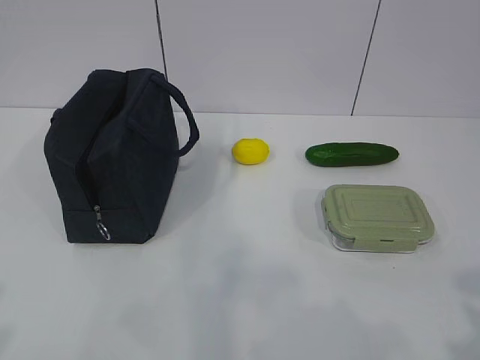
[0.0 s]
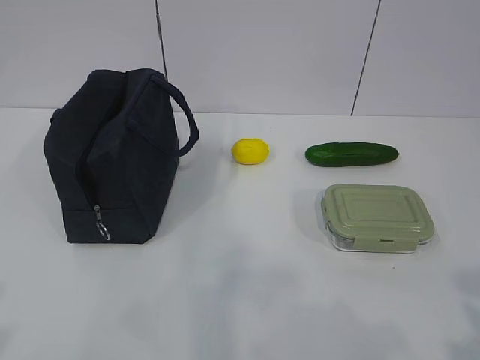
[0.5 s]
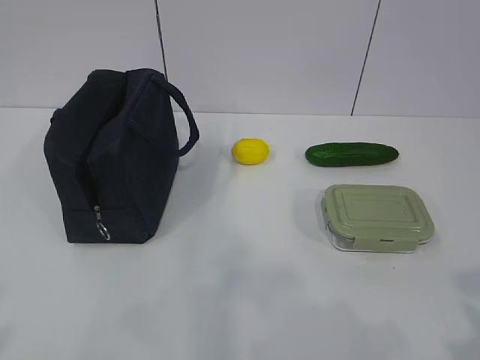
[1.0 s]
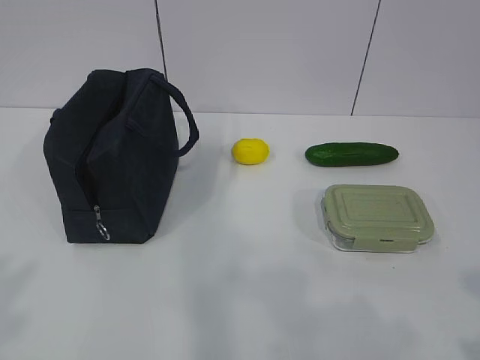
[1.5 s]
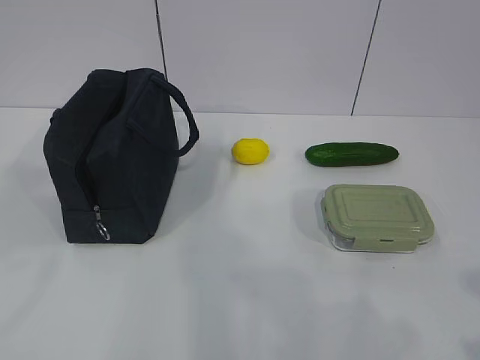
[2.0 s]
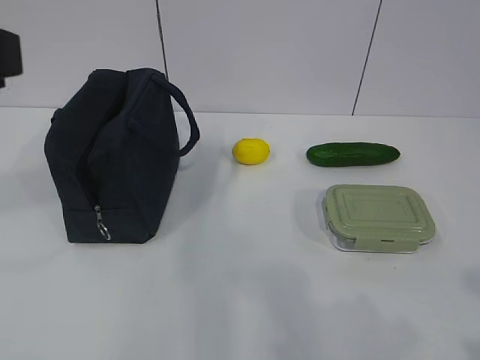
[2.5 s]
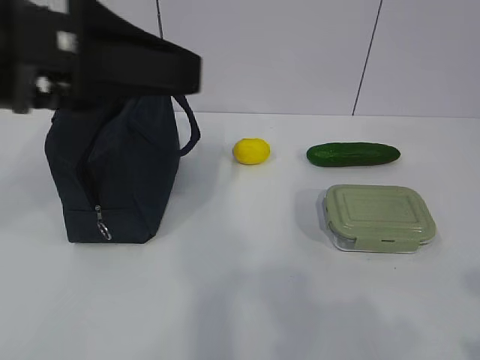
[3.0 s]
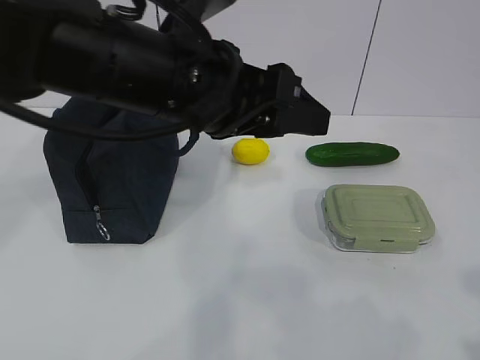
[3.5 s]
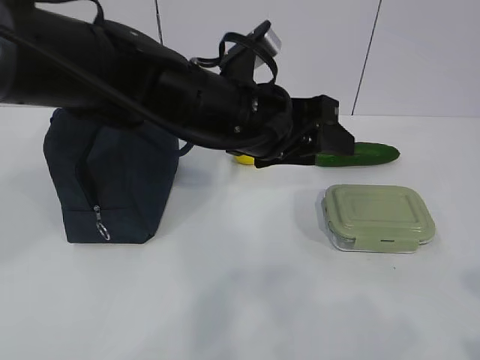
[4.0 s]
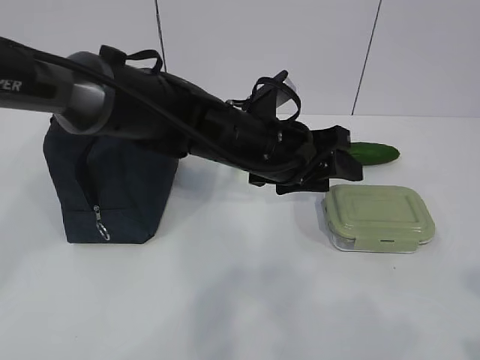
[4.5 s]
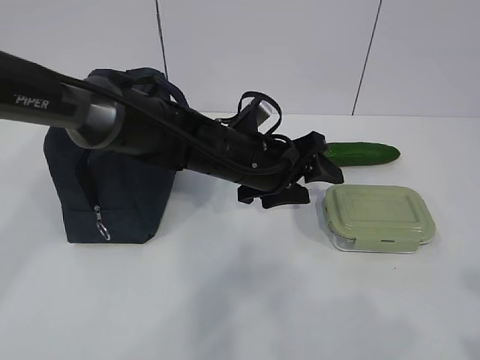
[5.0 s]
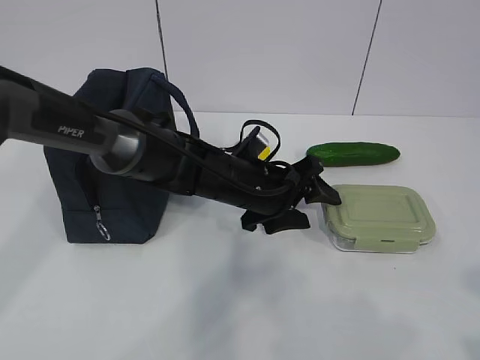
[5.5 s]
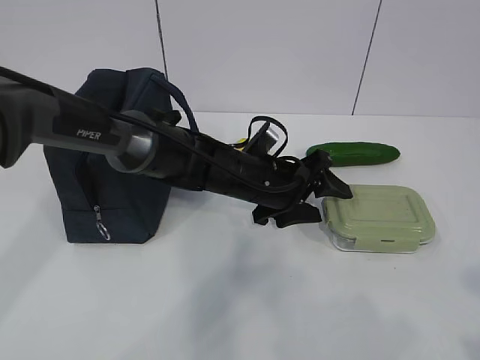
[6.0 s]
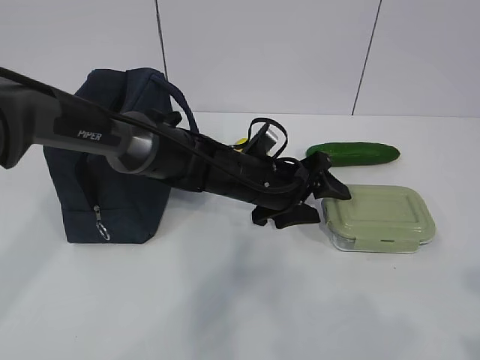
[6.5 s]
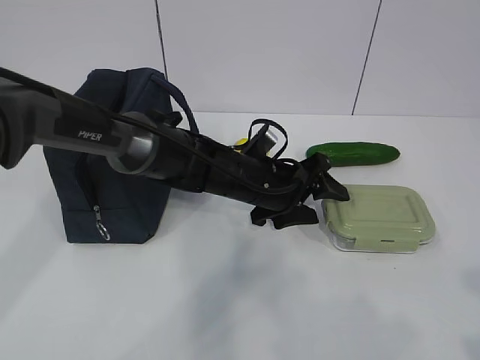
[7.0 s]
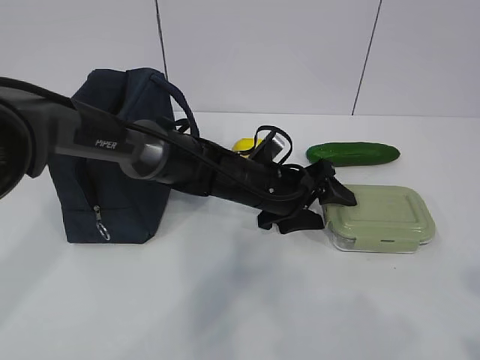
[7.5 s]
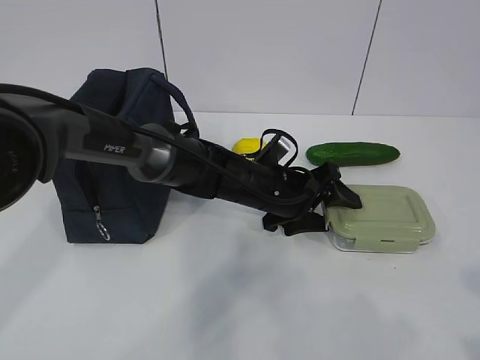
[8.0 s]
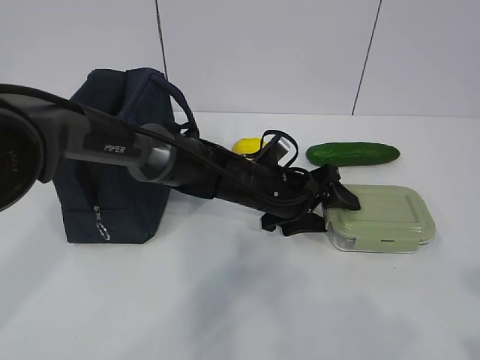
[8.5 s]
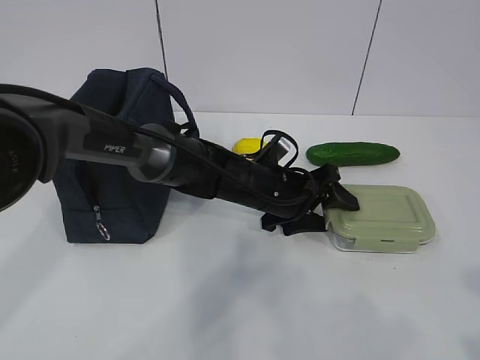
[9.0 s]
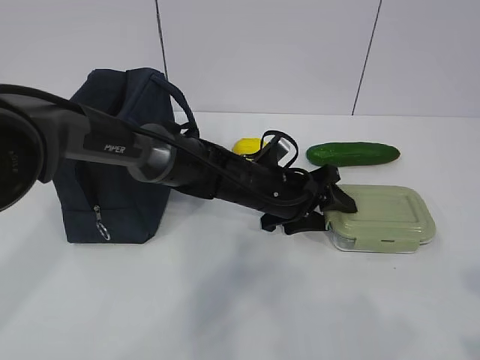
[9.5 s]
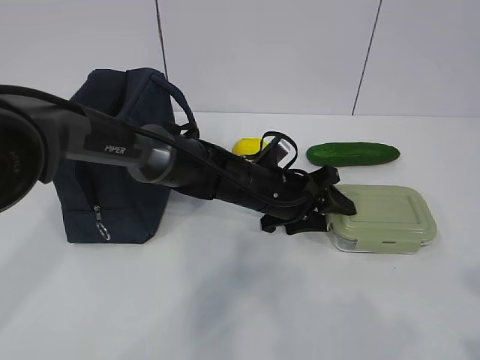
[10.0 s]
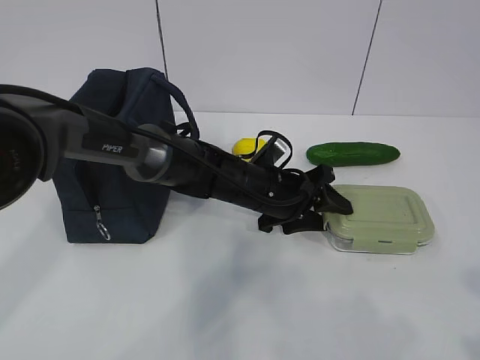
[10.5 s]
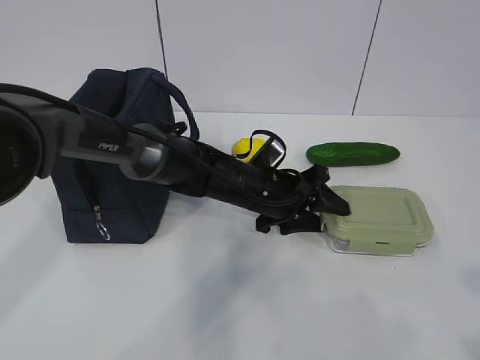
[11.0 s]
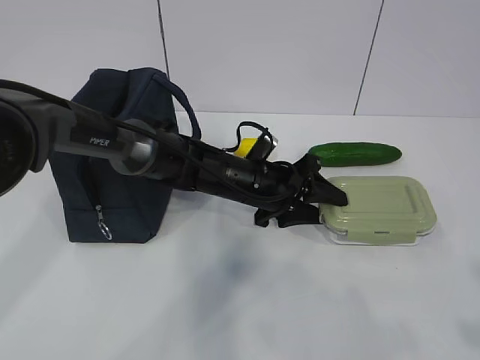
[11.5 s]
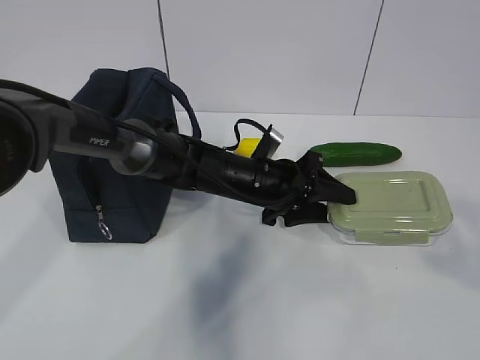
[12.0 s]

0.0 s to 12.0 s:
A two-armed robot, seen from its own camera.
Step, 0.0 to 9.0 s: Grab the lunch box with your left hand.
2.0 to 4.0 s: The left gripper is displaced to the right, forward and downward by about 35 cm.
4.0 to 6.0 s: The left gripper heads downward and forward, covering about 15 cm.
6.0 to 8.0 s: The grippers stay close to where they were, moving slightly.
8.0 to 10.0 s: The two grippers keep their place.
10.0 to 12.0 s: The right gripper goes some 5 cm upward.

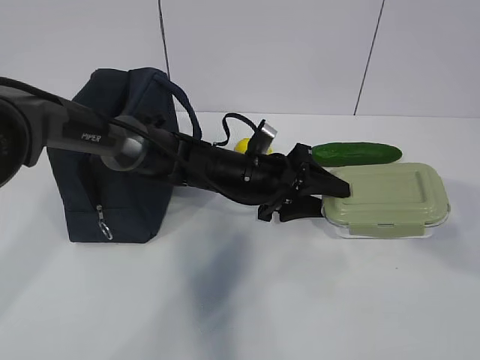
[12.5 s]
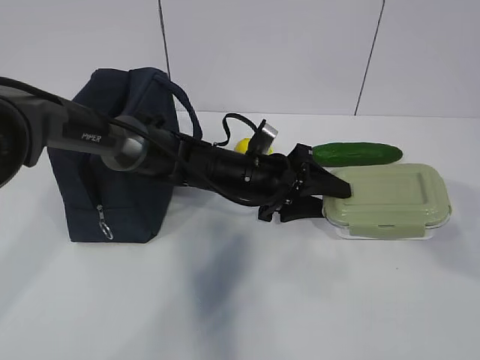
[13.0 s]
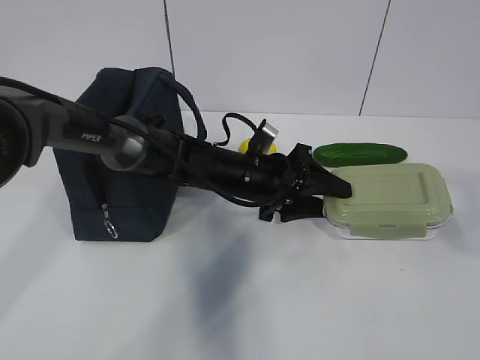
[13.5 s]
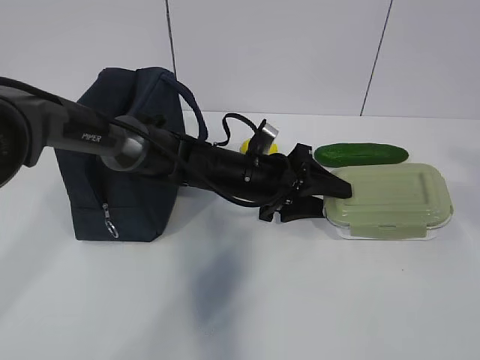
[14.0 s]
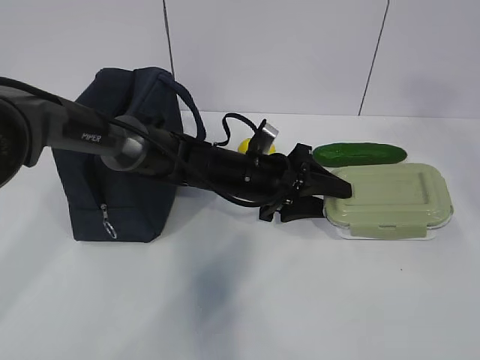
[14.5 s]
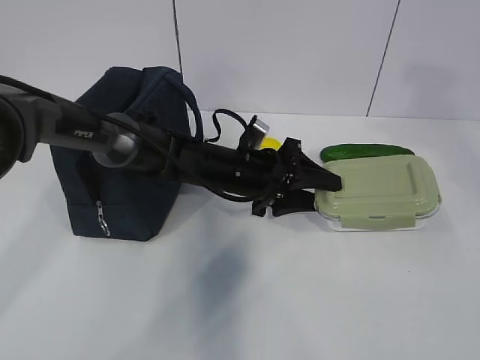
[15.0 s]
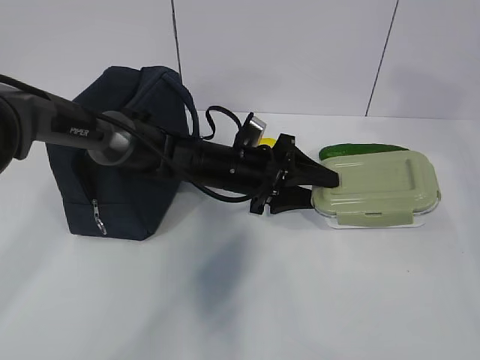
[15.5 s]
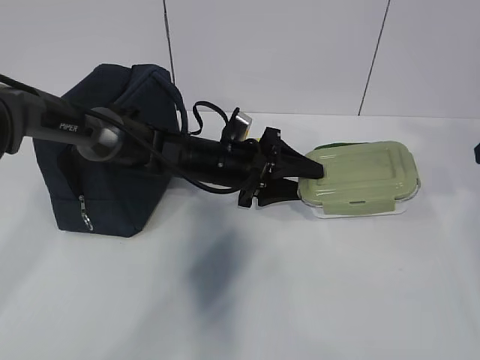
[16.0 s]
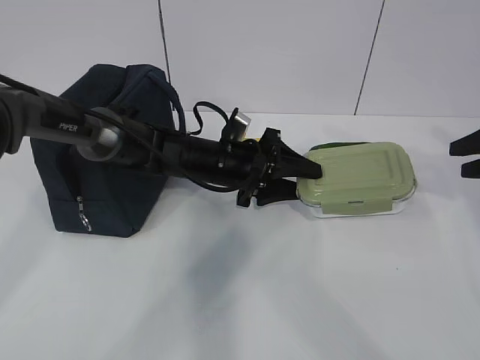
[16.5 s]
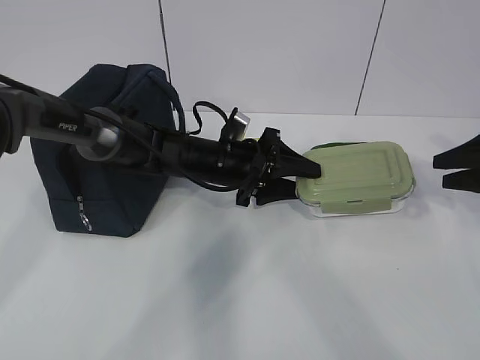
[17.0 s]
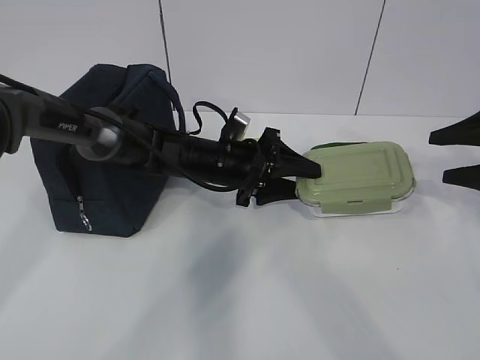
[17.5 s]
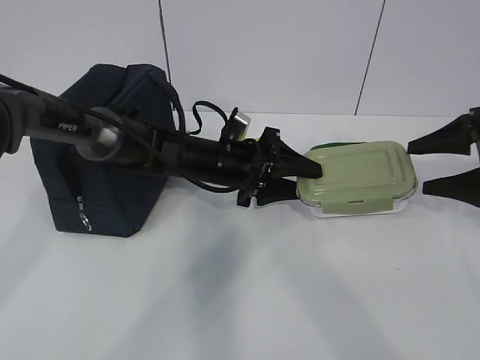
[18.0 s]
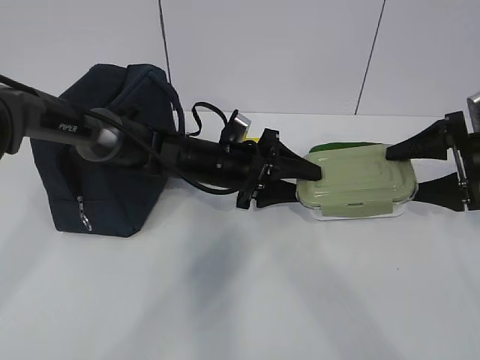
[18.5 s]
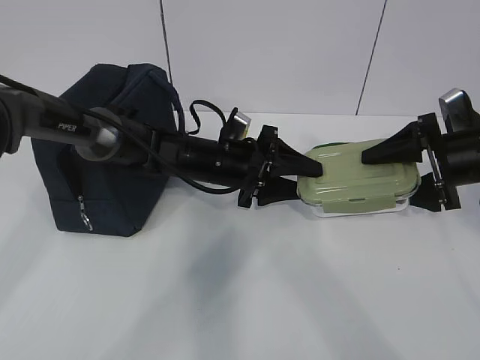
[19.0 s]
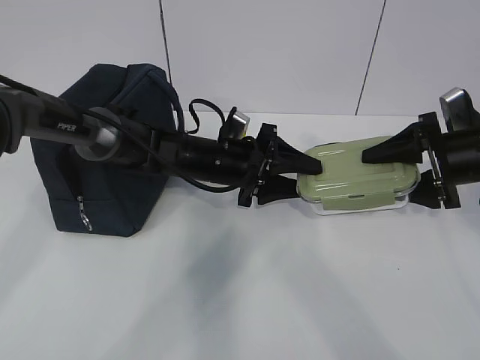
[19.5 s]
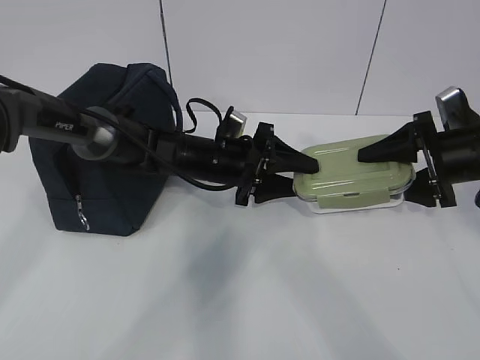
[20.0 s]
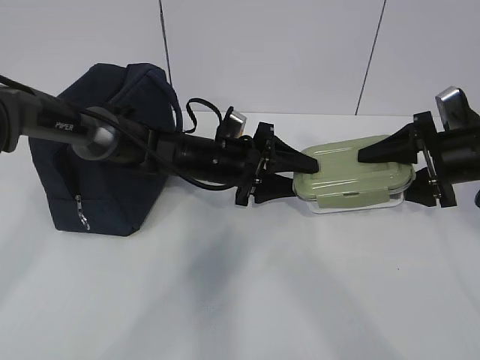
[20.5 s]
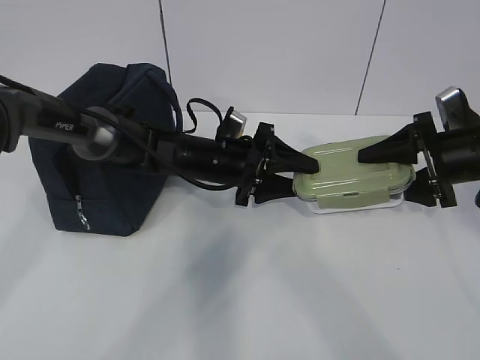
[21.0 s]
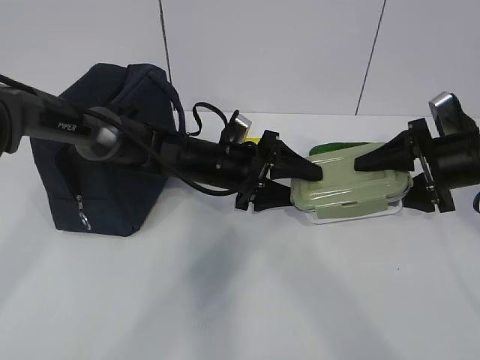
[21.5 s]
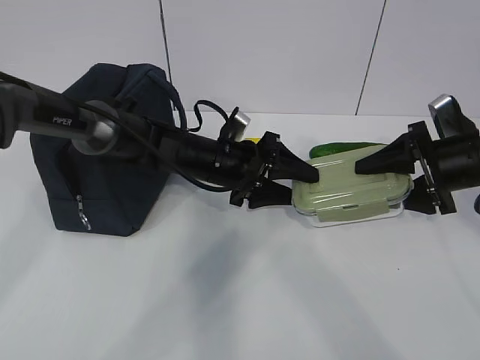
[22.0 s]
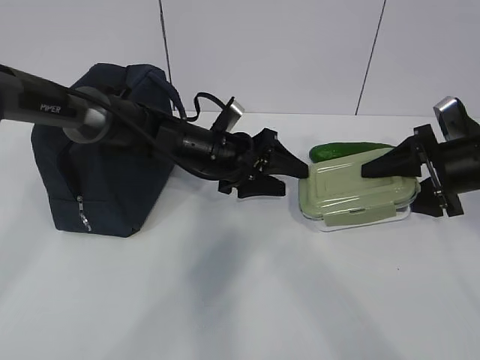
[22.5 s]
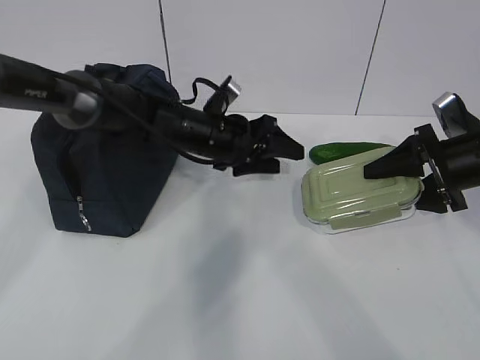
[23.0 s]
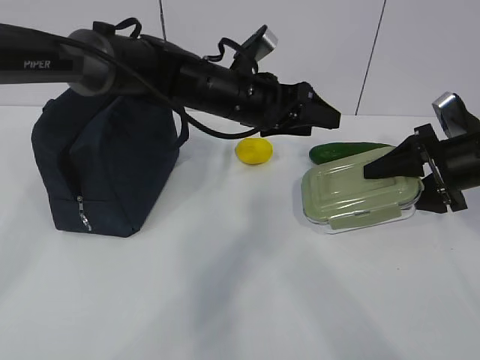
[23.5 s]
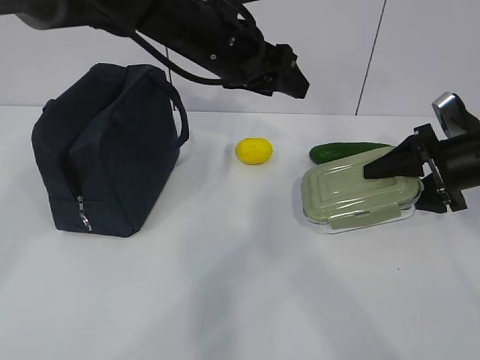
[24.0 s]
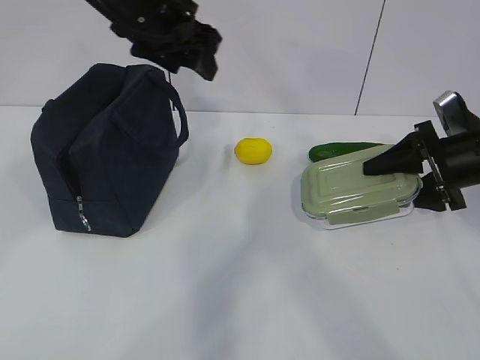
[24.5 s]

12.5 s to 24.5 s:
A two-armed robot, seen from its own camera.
Step, 12.5 to 17.5 s: Take the lunch box with your right hand.
12.5 to 14.5 s: The right gripper goes about 15 cm upward and forward.
14.5 to 16.5 s: The right gripper travels downward and forward by about 30 cm.
16.5 to 18.5 s: The right gripper travels downward by roughly 5 cm, and opens.
18.5 to 22.5 s: The grippers move only a little.
22.5 to 24.5 s: The left gripper is displaced upward by some 20 cm.

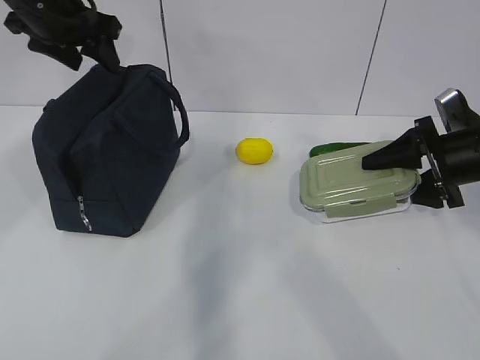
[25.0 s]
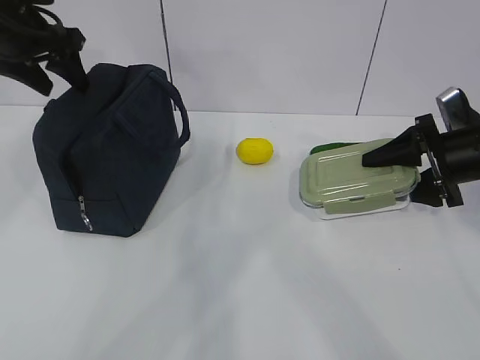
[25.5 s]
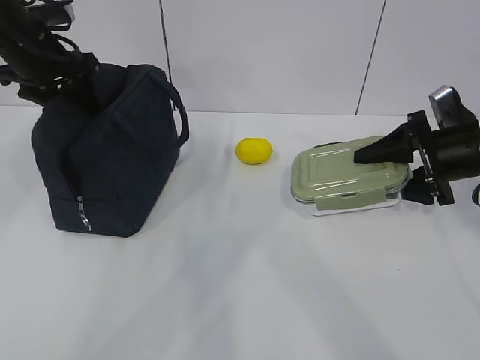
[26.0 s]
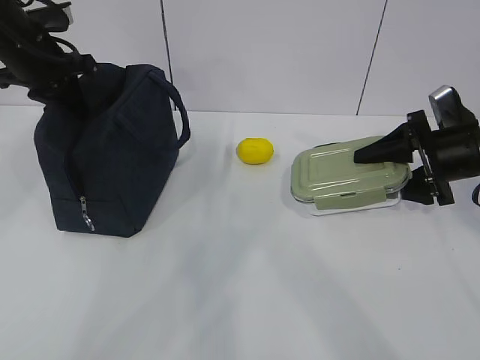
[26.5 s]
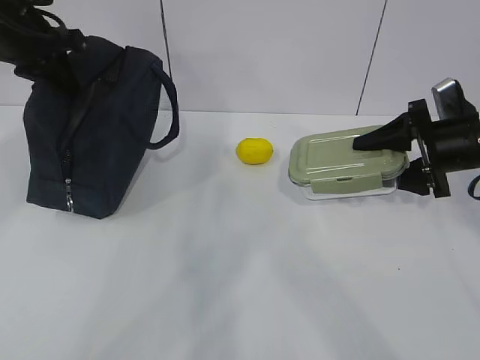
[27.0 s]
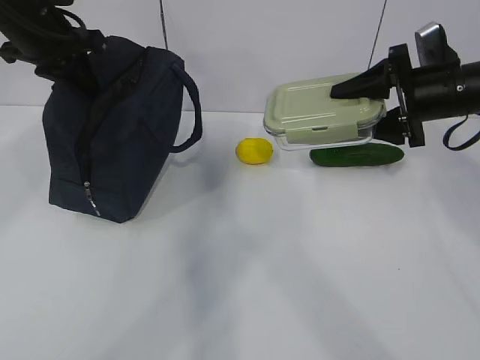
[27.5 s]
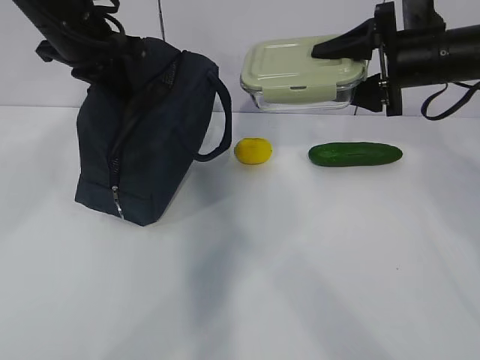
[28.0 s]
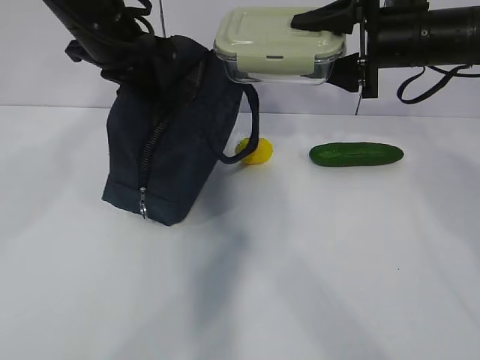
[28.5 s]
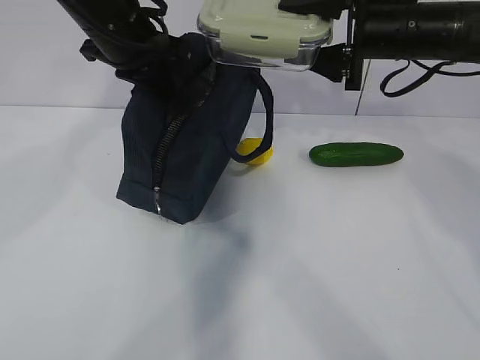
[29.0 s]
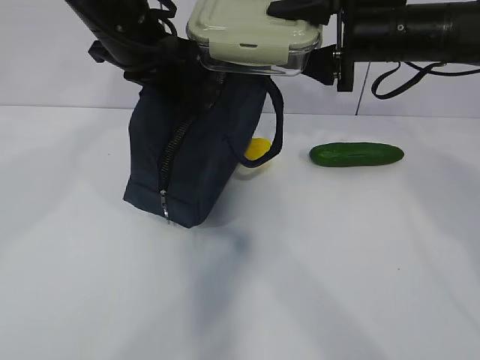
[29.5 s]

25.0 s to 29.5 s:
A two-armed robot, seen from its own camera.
Step, 25.0 to 29.0 s: Place it into the bag with your right hand.
25.0 to 27.0 s: The left gripper moves roughly 5 cm, and closes.
27.0 to 29.5 s: The left gripper is displaced to the right by some 15 cm. The right gripper shifts some 15 cm to the left and upward.
